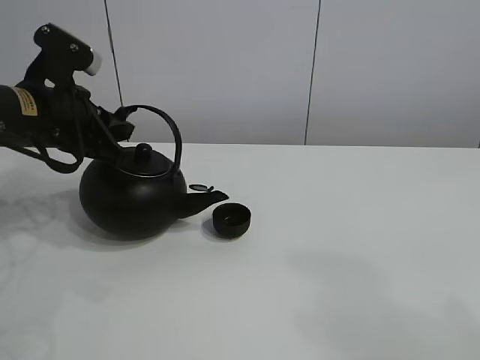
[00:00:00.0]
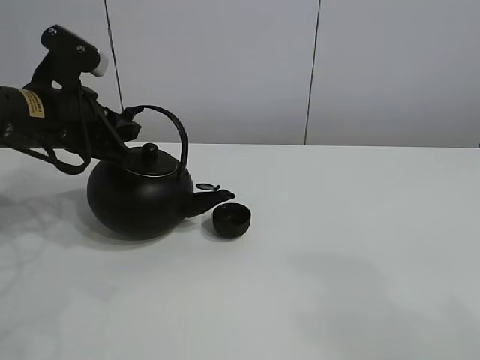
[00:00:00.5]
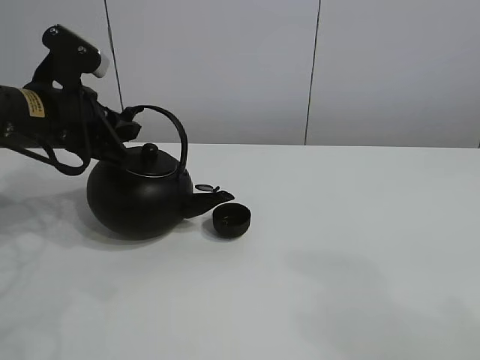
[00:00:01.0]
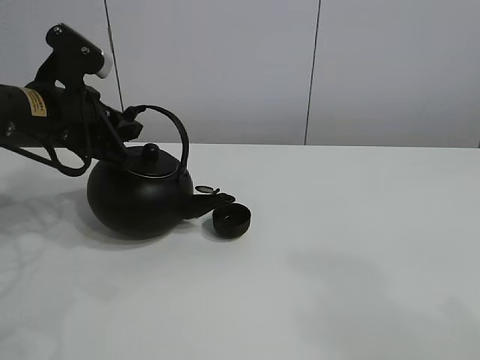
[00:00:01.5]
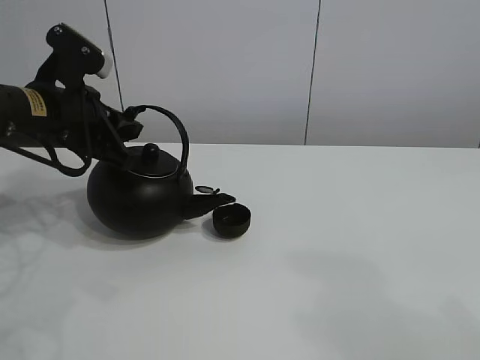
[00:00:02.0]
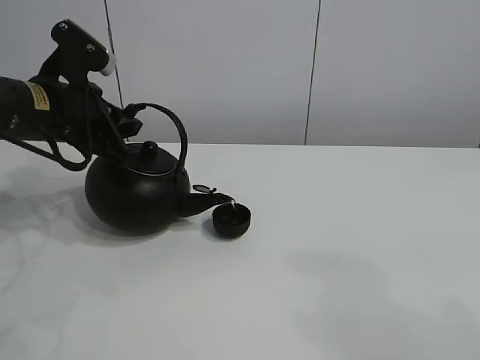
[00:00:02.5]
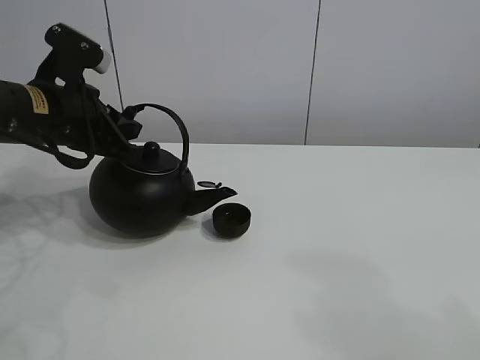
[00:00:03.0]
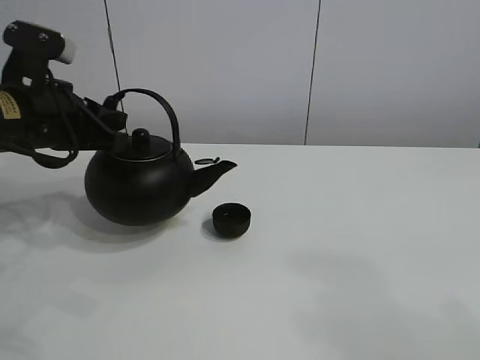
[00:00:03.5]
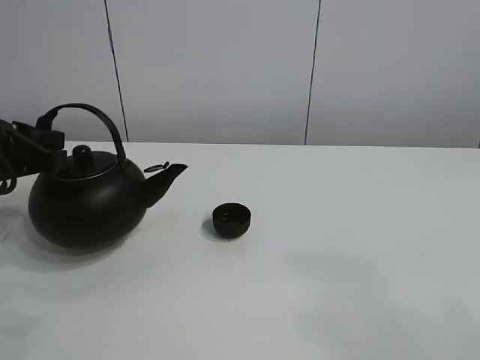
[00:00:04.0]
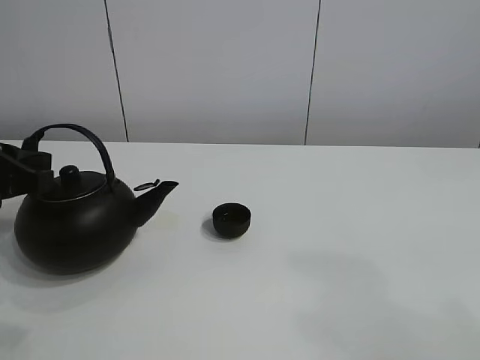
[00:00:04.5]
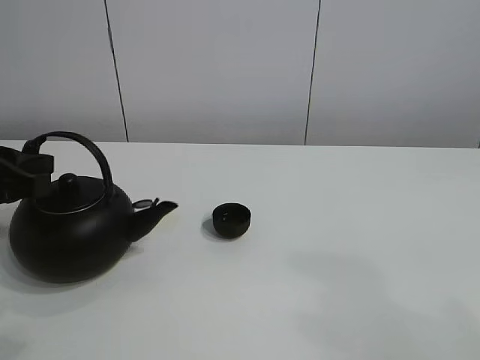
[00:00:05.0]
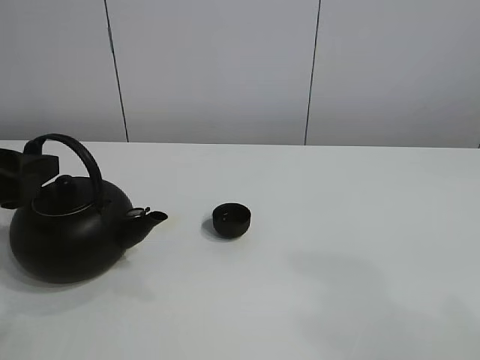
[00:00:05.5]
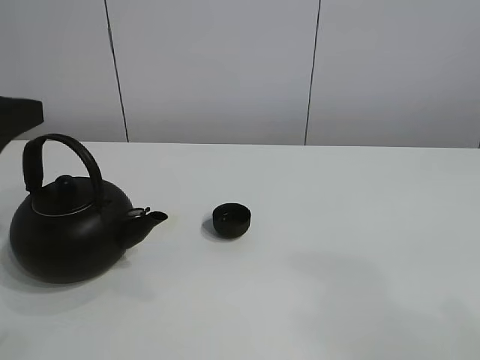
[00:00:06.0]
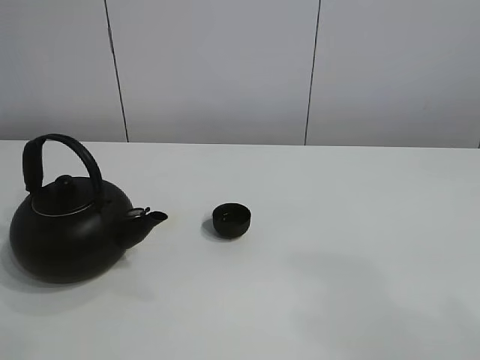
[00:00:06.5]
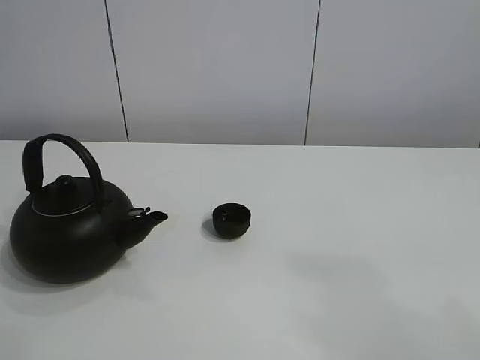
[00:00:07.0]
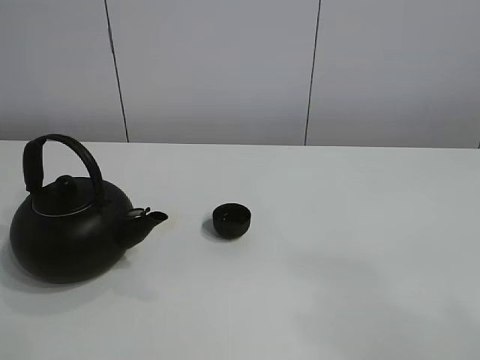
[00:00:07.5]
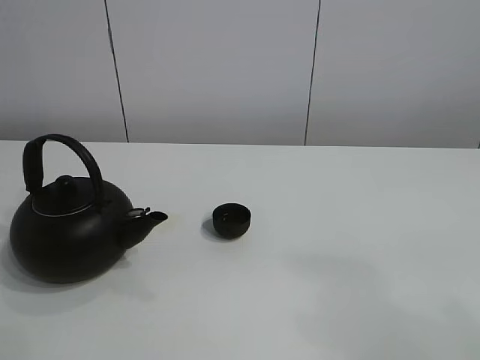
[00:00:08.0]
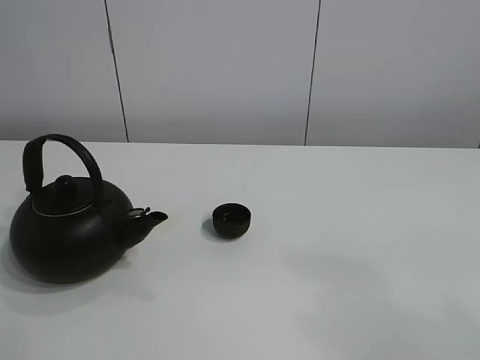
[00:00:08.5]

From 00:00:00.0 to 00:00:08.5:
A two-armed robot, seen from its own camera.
Task of the whole recording: pour tea into the teacup.
Step, from 00:00:00.0 to 00:00:03.0: Pour tea into the teacup with the left gripper.
From 00:00:00.0 to 00:00:02.0: The two grippers keep their place.
From 00:00:02.0 to 00:00:04.0: The left gripper moves to the left and backward, approximately 10 cm.
From 00:00:04.0 to 00:00:06.5: The left gripper travels upward by about 20 cm, and opens up.
